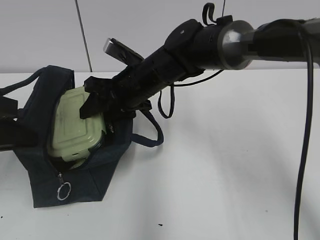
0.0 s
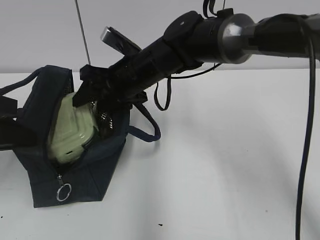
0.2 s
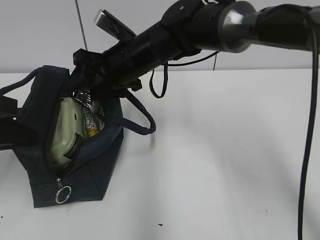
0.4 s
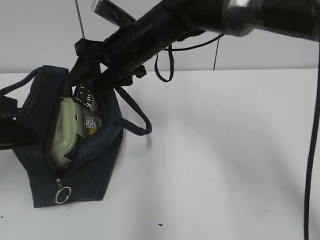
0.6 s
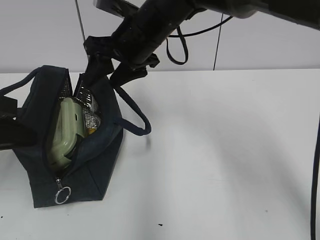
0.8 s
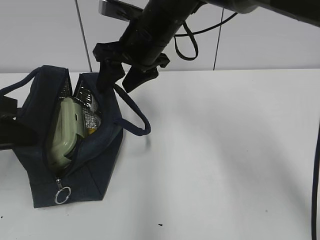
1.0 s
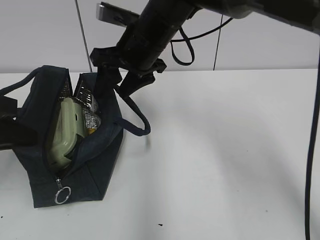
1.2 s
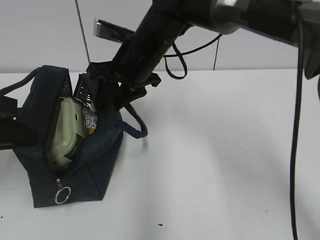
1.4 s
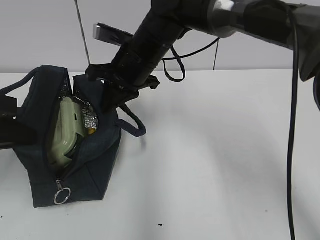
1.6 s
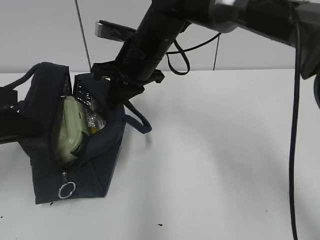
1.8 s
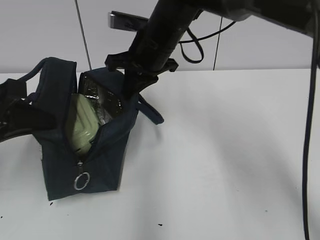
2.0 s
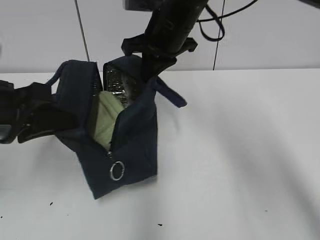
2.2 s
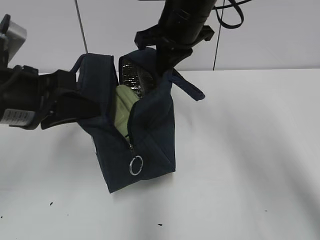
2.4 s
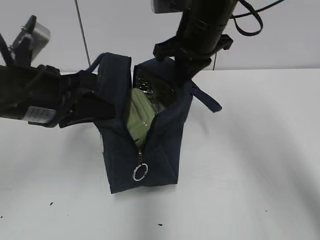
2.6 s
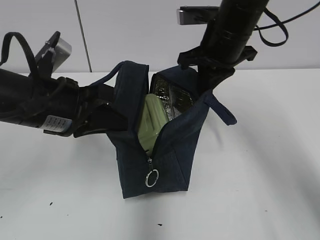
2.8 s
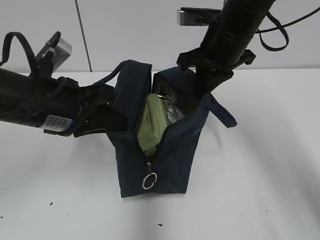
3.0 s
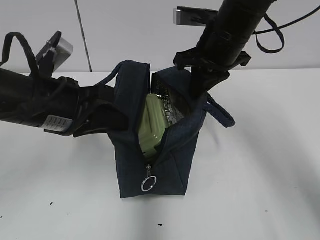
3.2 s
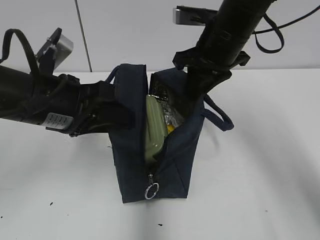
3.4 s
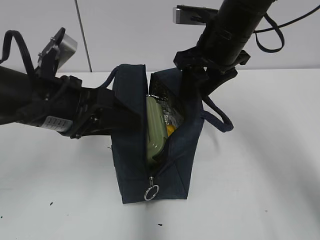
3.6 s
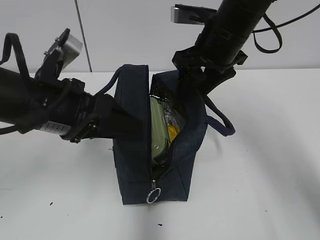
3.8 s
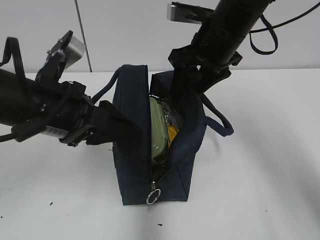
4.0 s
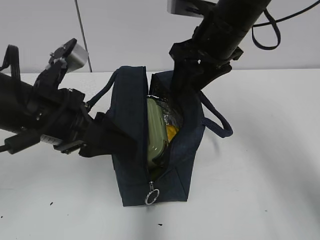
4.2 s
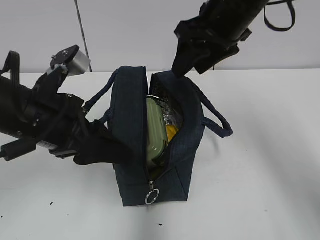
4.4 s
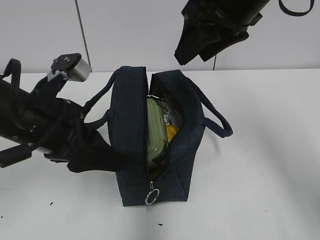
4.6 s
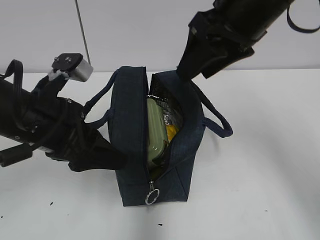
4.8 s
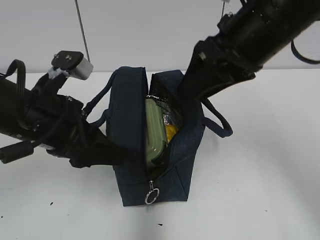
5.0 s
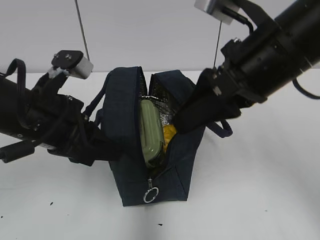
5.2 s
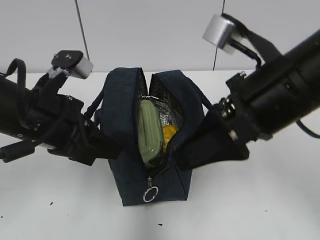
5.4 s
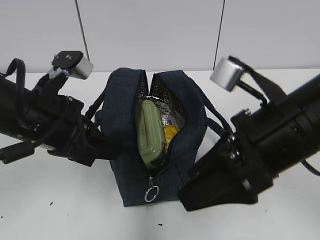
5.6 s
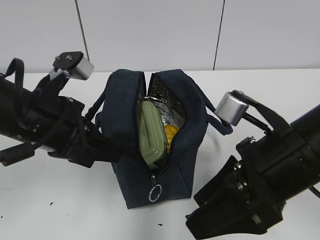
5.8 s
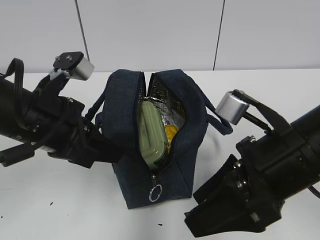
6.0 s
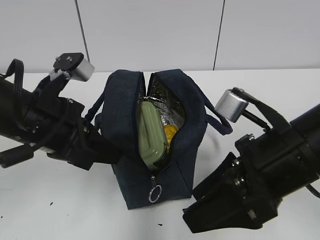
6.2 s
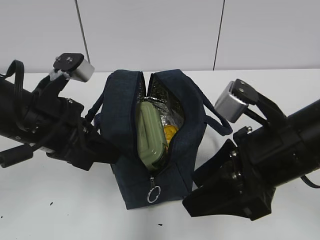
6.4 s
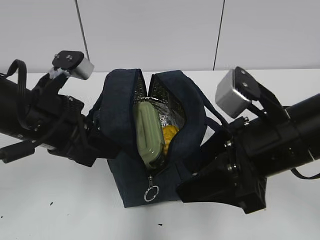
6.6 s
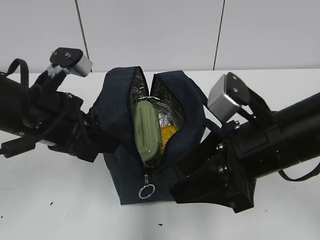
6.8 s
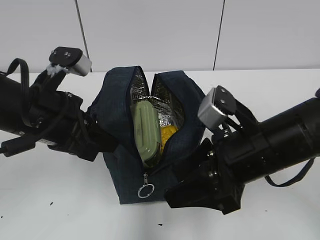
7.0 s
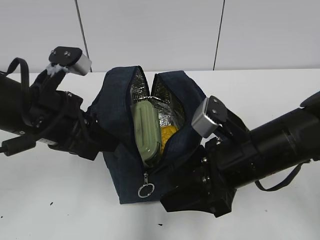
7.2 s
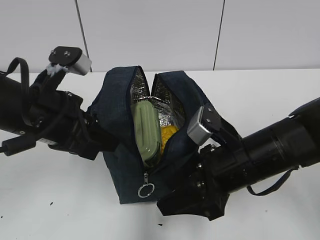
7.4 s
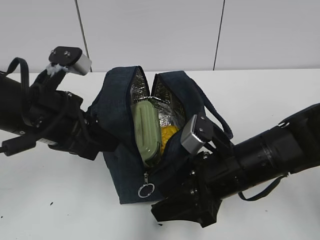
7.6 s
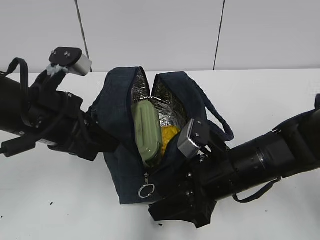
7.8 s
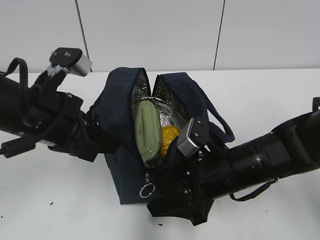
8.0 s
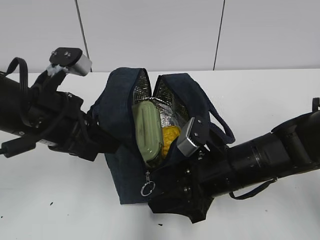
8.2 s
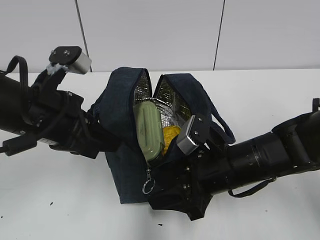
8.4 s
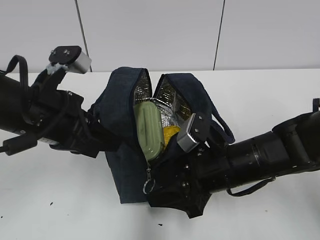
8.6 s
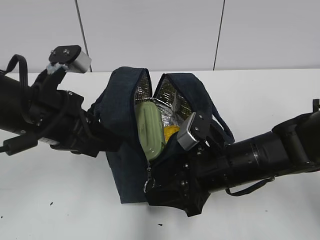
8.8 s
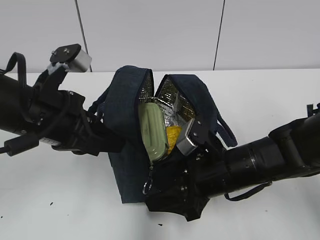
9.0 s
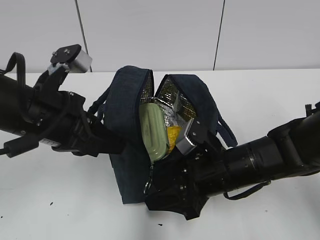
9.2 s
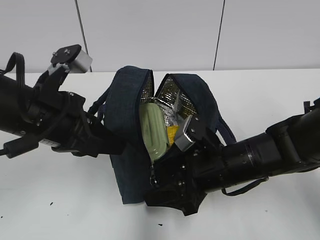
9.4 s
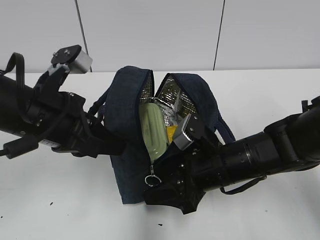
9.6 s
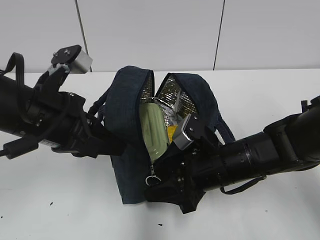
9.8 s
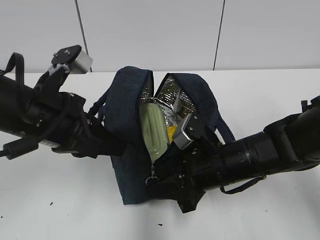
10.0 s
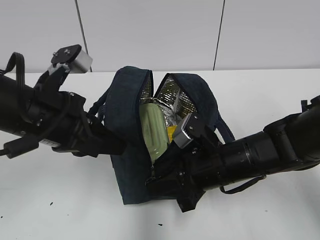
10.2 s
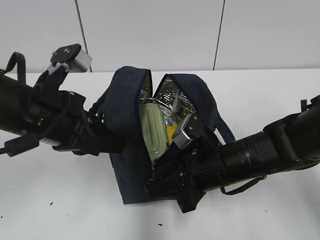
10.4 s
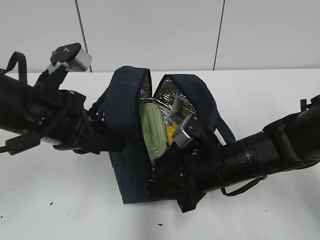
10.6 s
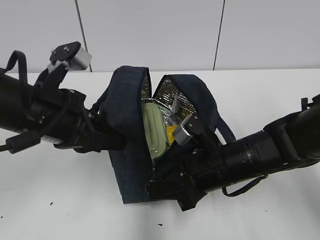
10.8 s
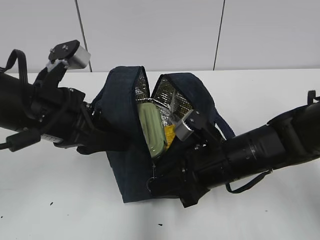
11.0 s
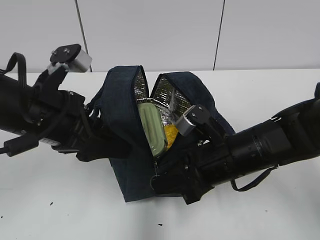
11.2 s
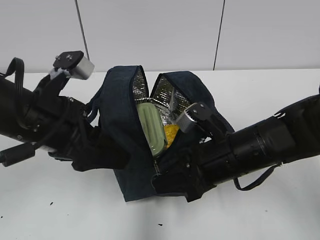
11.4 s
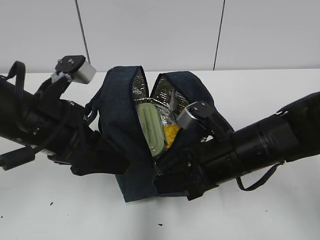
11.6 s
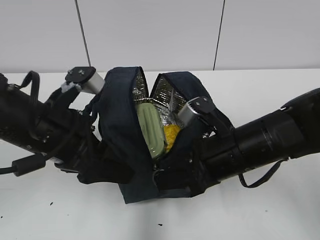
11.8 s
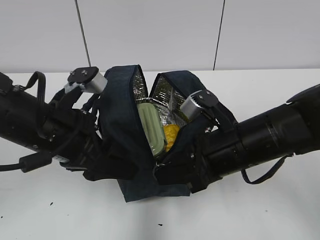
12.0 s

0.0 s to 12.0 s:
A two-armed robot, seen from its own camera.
0.0 to 1.6 s: The right gripper closes its fingers.
1.6 to 3.0 s: The two grippers go about 10 cm to the right.
3.0 to 4.4 s: The left gripper opens. The right gripper is displaced upward by approximately 5 cm, and opens up.
4.4 to 6.0 s: The left gripper closes. The right gripper heads backward and downward, covering some 20 cm.
6.0 to 7.6 s: The right gripper shifts about 10 cm downward and forward.
7.6 to 9.0 s: The grippers stay close to where they were, moving slightly.
9.0 to 10.4 s: The right gripper closes.
10.4 to 12.0 s: The right gripper goes some 5 cm upward. The left gripper opens up.

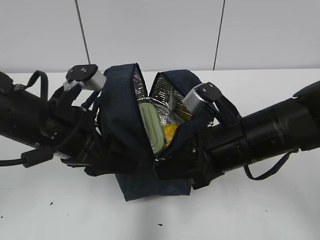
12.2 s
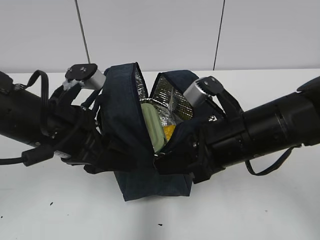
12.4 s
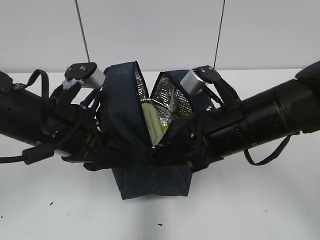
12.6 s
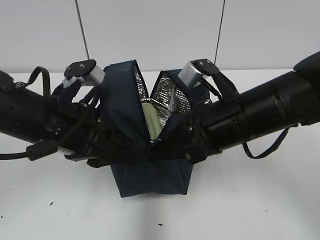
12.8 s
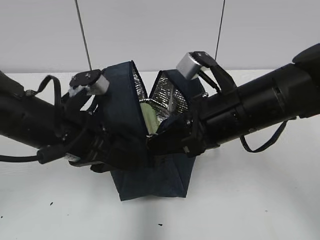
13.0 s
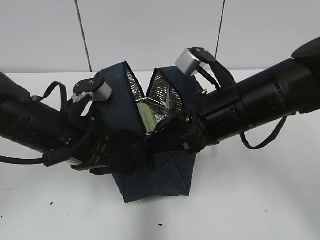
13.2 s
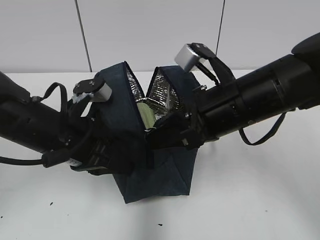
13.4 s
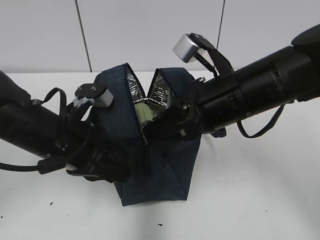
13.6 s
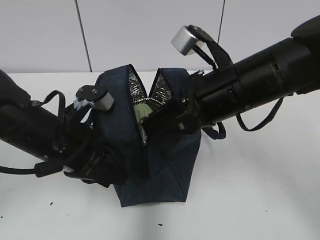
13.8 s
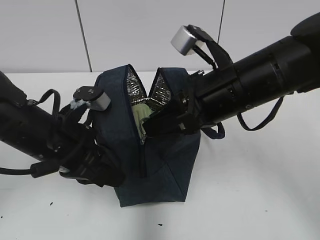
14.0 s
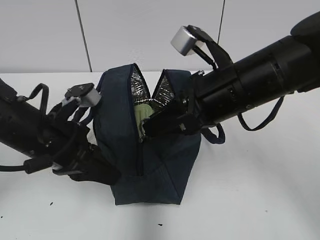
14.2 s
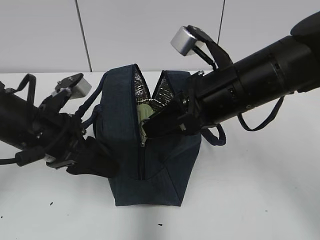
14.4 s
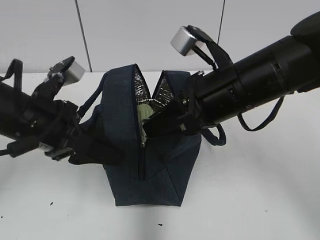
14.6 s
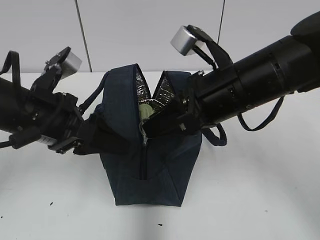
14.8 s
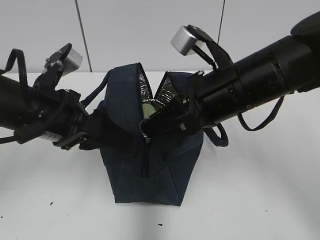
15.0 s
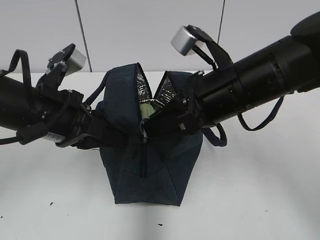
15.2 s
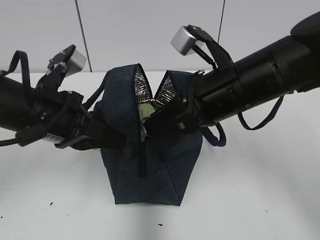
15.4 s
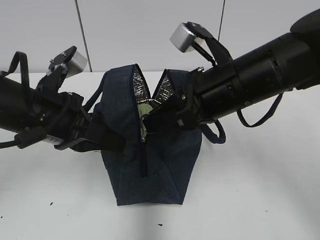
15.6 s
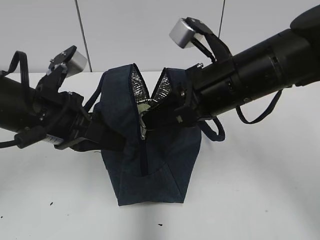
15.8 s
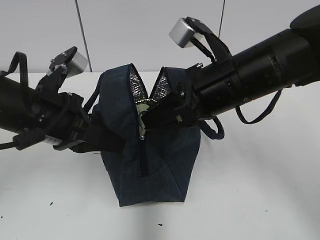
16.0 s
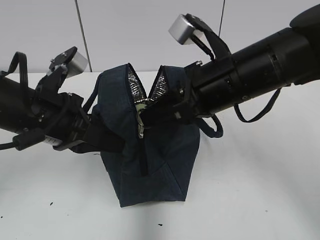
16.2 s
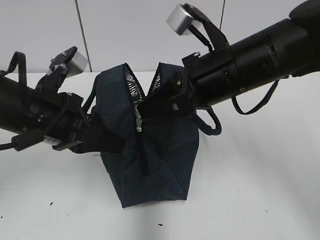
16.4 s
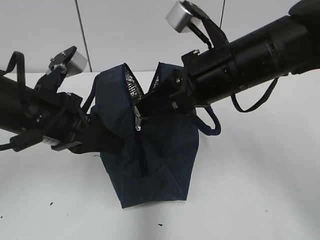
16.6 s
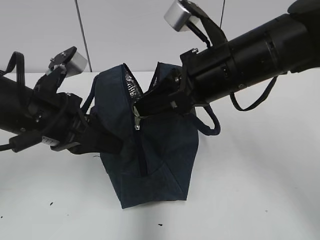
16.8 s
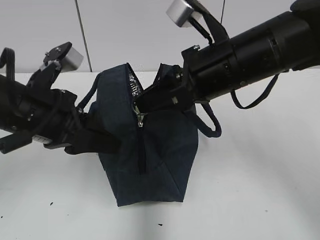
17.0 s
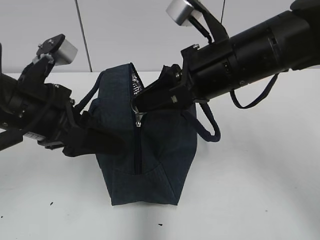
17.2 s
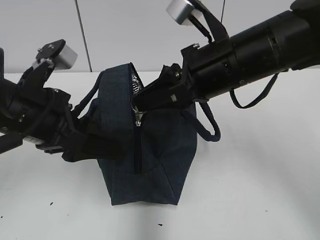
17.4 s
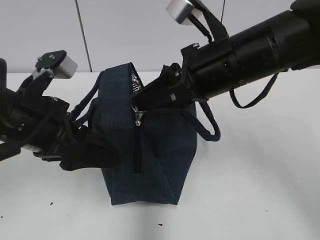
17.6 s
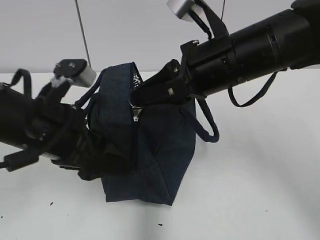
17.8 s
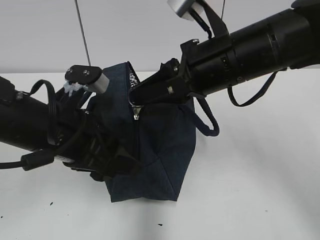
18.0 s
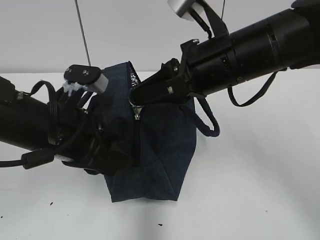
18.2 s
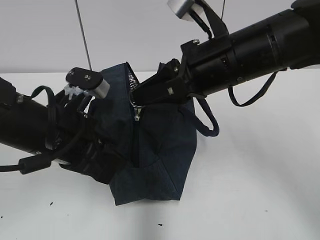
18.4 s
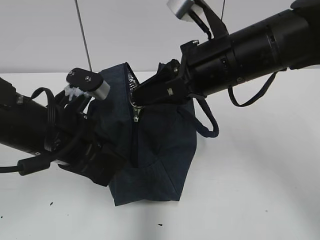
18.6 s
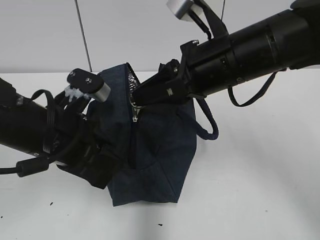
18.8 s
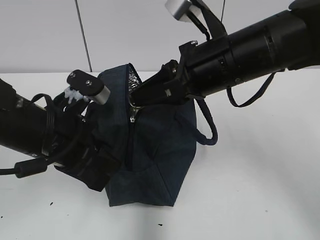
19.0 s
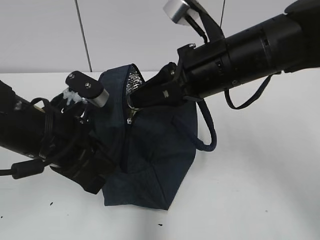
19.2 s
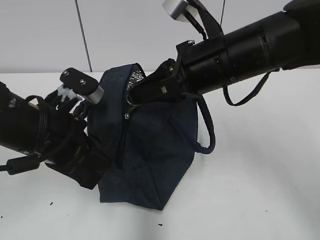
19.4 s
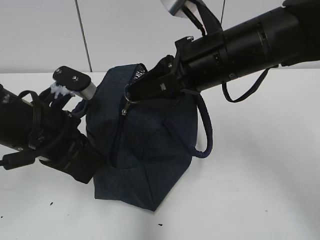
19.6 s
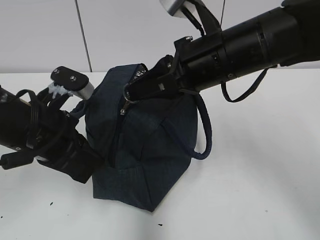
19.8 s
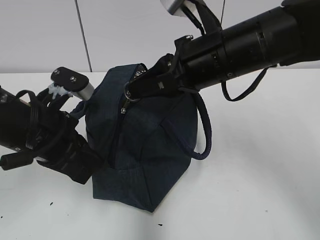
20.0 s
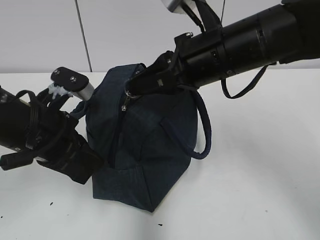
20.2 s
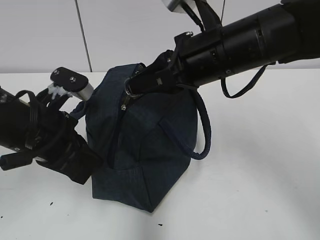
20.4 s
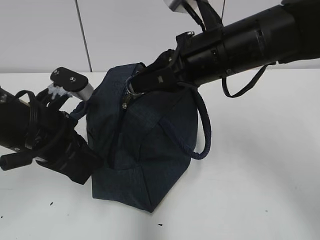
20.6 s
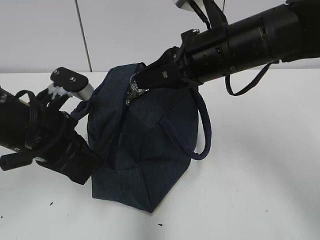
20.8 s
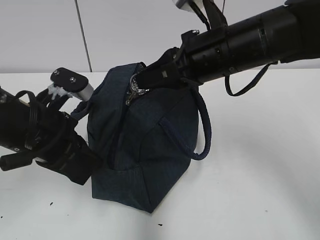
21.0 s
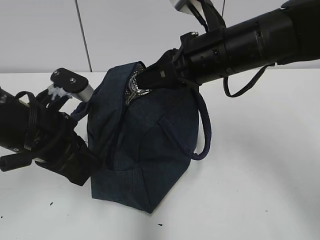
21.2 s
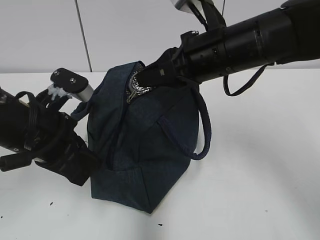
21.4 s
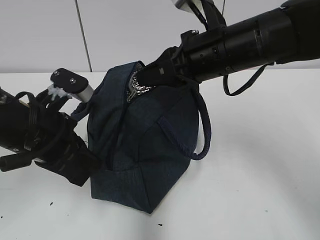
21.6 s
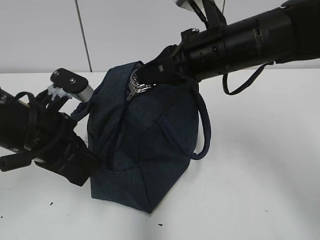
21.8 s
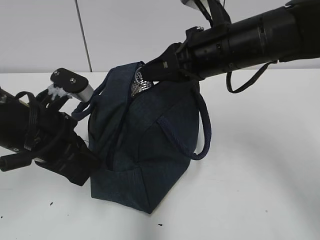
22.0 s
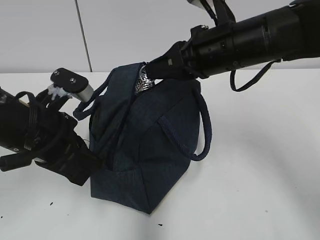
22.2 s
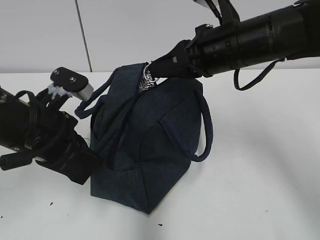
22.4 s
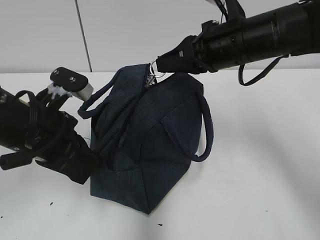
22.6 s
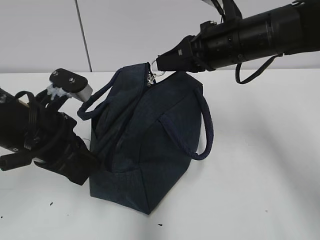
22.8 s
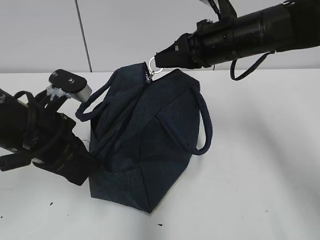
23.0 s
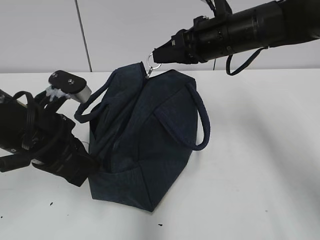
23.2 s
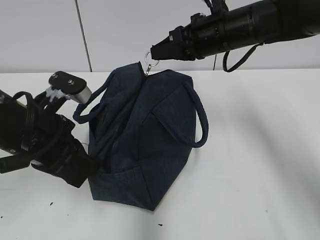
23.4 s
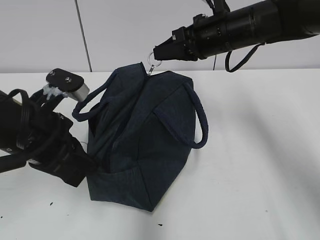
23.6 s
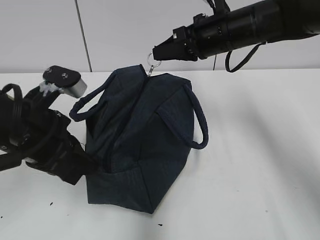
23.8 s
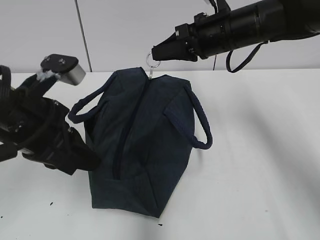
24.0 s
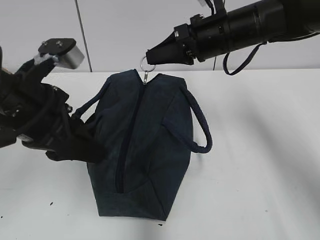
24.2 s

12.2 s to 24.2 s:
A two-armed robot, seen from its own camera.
12.2 to 13.8 s: The right gripper goes roughly 5 cm upward. Meanwhile the left gripper closes its fingers.
13.8 to 15.2 s: The left gripper opens up.
15.2 to 16.6 s: The left gripper closes its fingers.
16.6 to 18.2 s: The left gripper opens up.
18.2 to 19.8 s: The left gripper closes up.
19.8 to 22.6 s: The grippers stay close to where they were, moving slightly.
22.6 to 24.2 s: The left gripper travels upward by approximately 5 cm, and opens its fingers.
